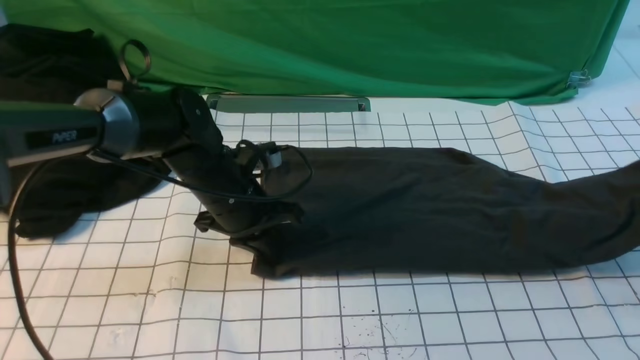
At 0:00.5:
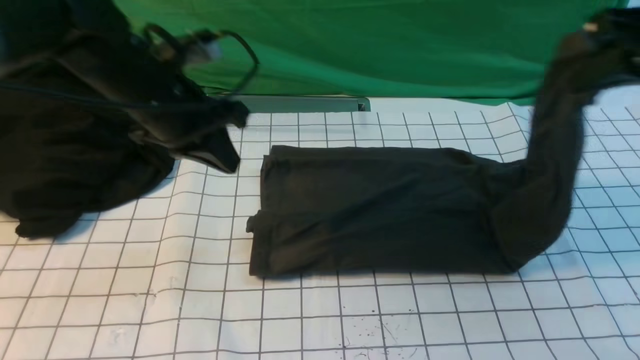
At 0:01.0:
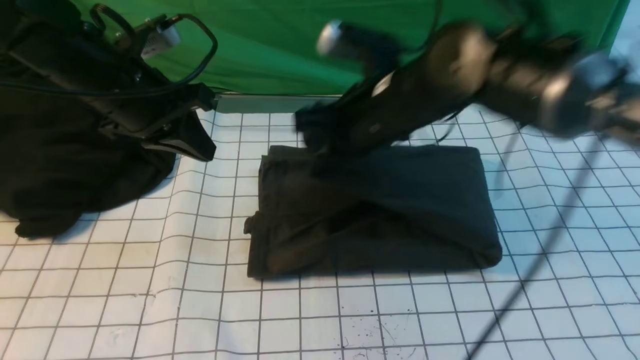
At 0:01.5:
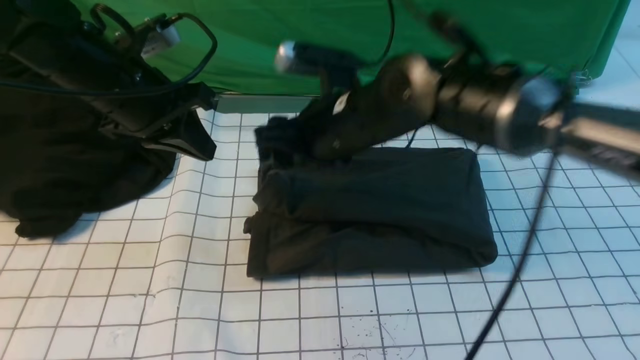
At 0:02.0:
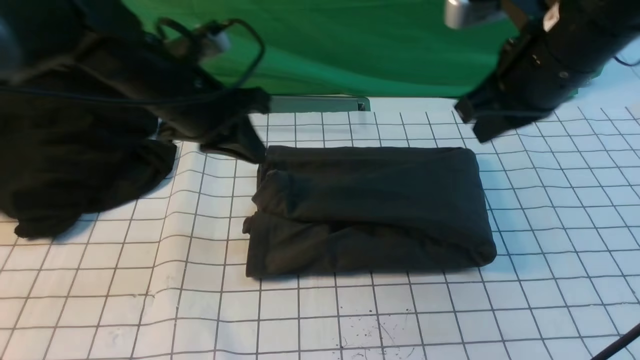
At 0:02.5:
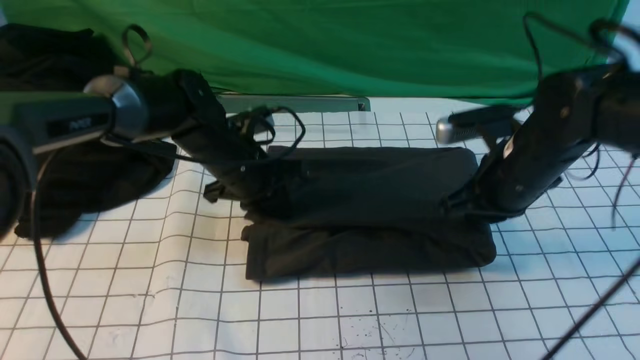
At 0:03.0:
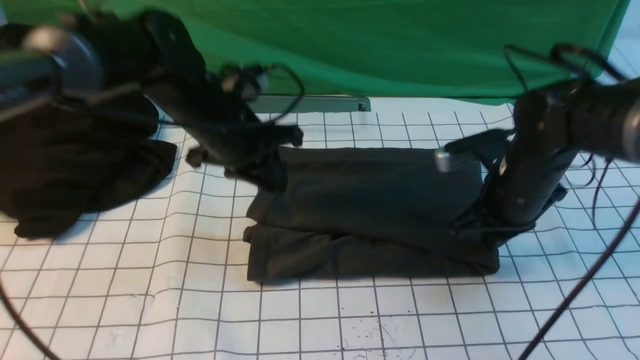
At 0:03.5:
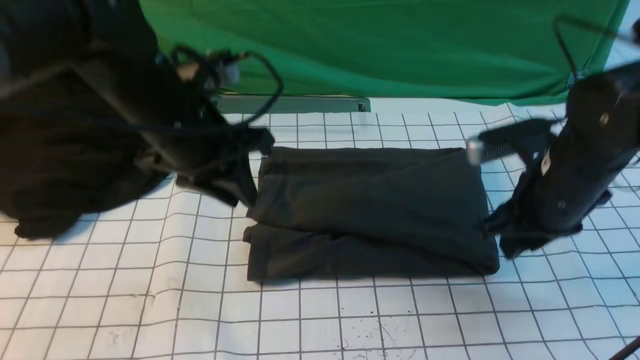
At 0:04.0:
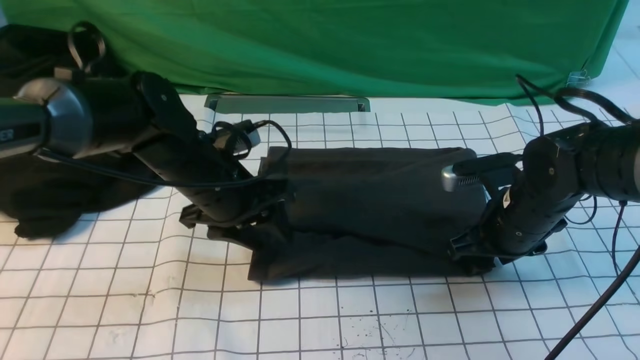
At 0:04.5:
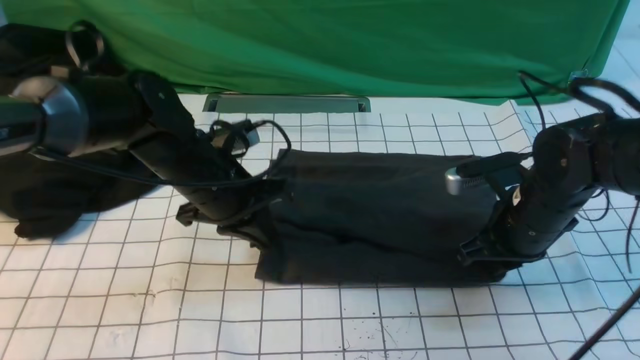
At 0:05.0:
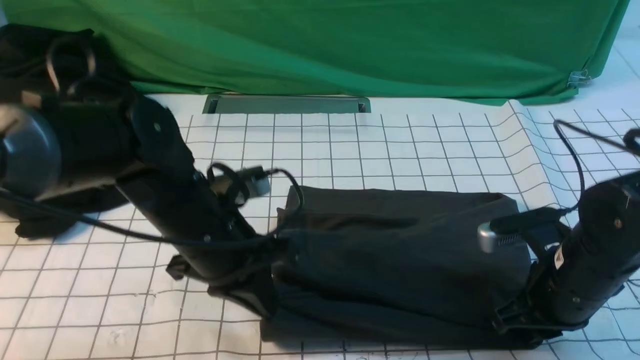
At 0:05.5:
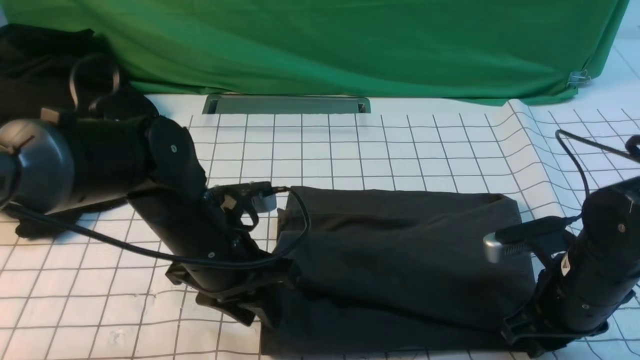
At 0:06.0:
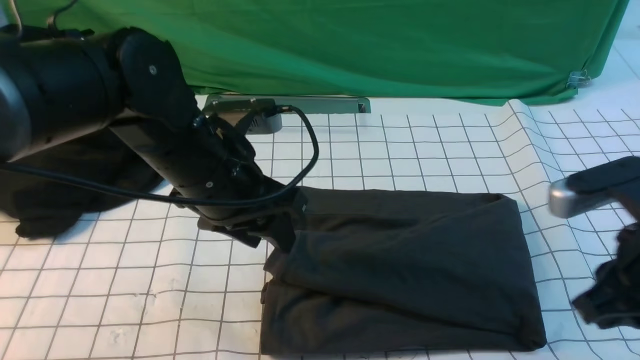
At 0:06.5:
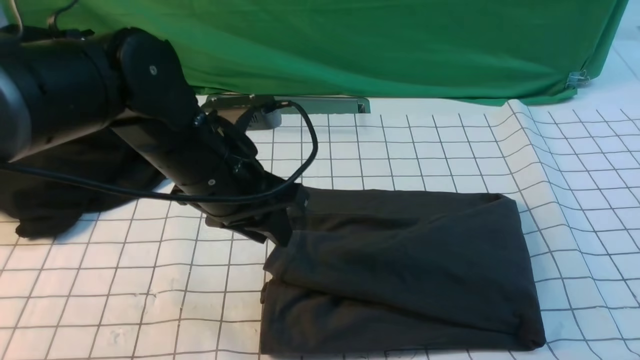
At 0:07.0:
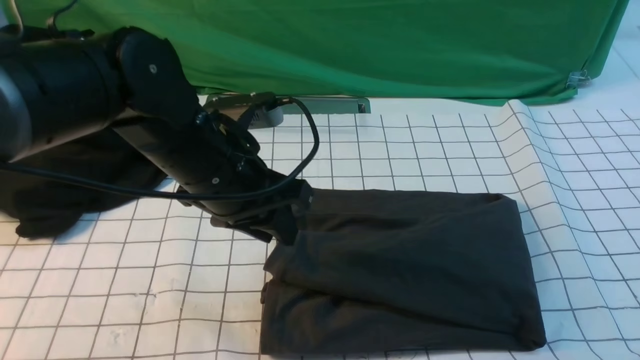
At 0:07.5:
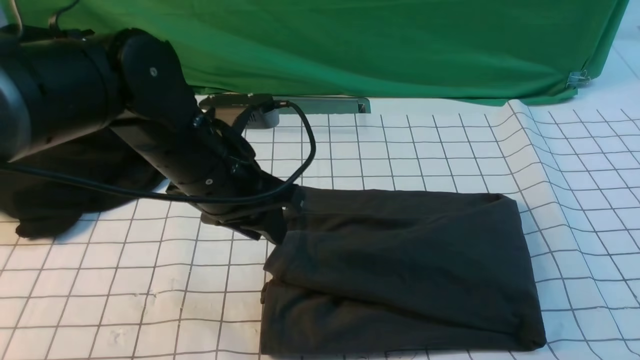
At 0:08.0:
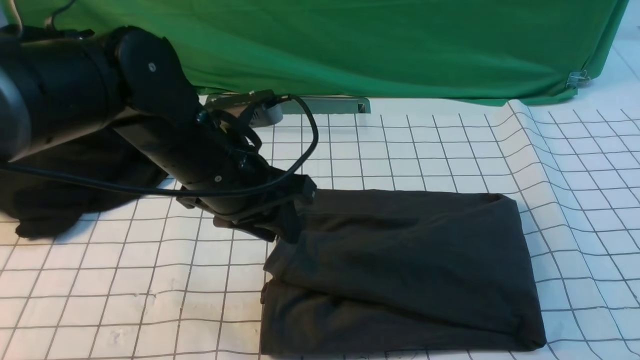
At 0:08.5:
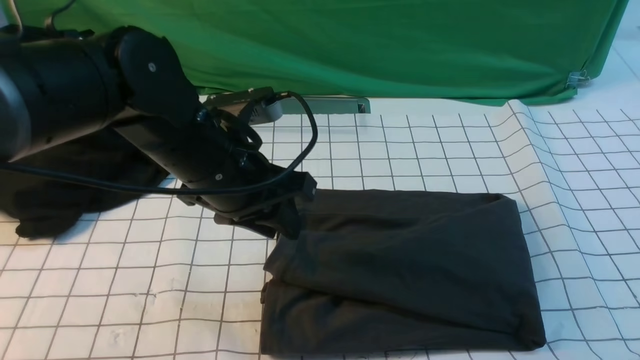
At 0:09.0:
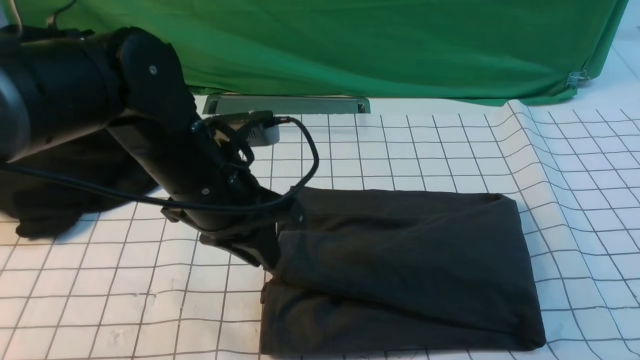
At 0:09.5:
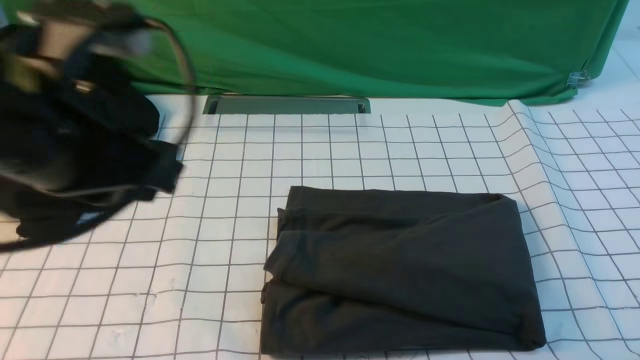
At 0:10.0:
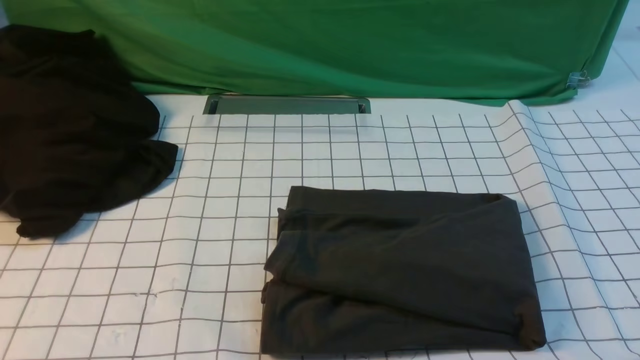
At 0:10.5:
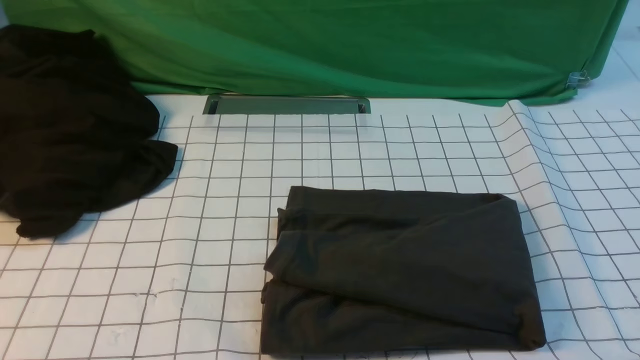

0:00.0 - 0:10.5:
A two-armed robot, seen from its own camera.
Step, 0:00.0 - 0:01.5: use the right arm to drag the right edge of the fabric to the left and folds it over the left edge.
0:00.0 - 0:02.0: The left gripper goes some 10 cm upward. Meanwhile the right gripper is displaced to the left by roughly 25 cm, and opens, then closes again.
0:02.0 - 0:04.0: The left gripper swings up and down, about 10 cm each way, with 2 reversals, and opens its fingers. Meanwhile the right gripper travels downward by approximately 15 cm, and opens.
0:04.0 - 0:06.5: The left gripper shifts approximately 10 cm upward and backward, and closes and opens again. Meanwhile the right gripper travels backward and upward by roughly 35 cm, and closes.
0:06.5 - 0:08.5: The right gripper moves downward, some 15 cm.
0:08.5 - 0:10.5: The left gripper travels backward and to the left by about 30 cm, and closes up.

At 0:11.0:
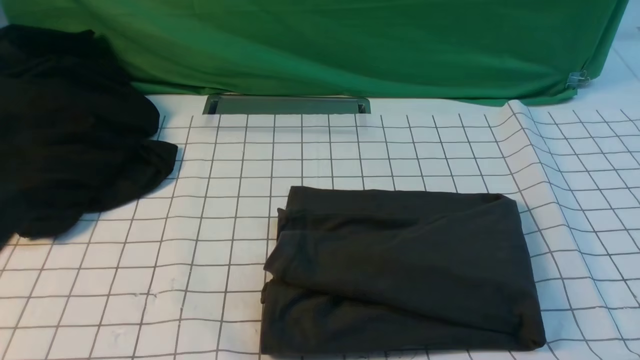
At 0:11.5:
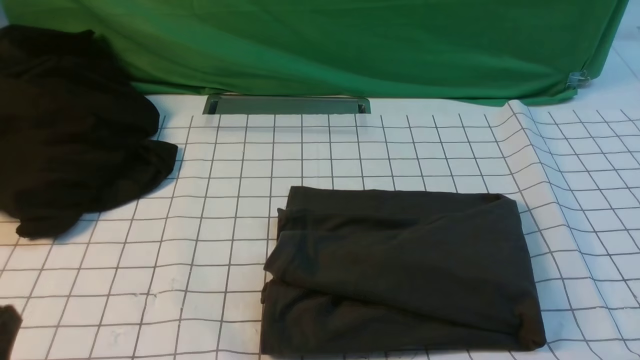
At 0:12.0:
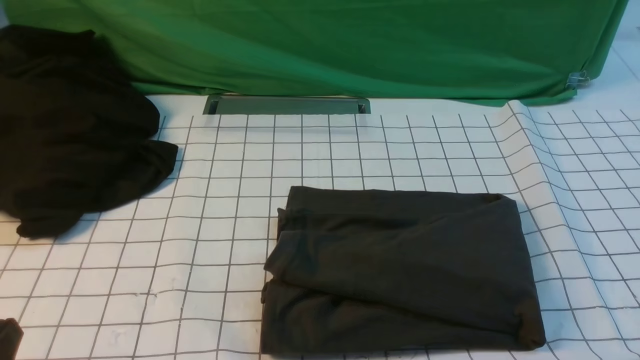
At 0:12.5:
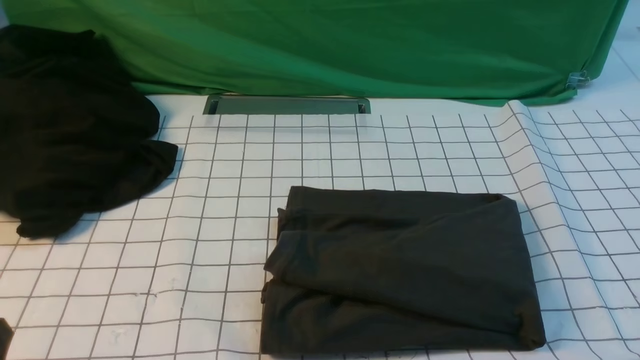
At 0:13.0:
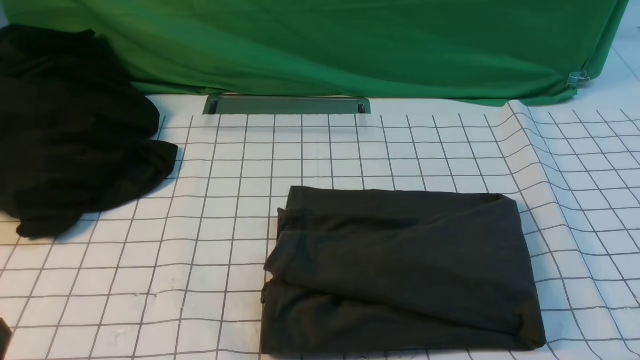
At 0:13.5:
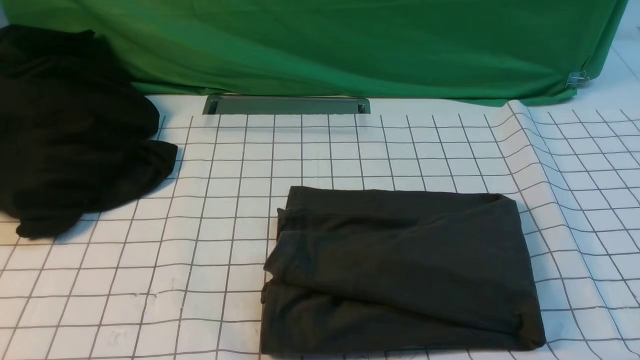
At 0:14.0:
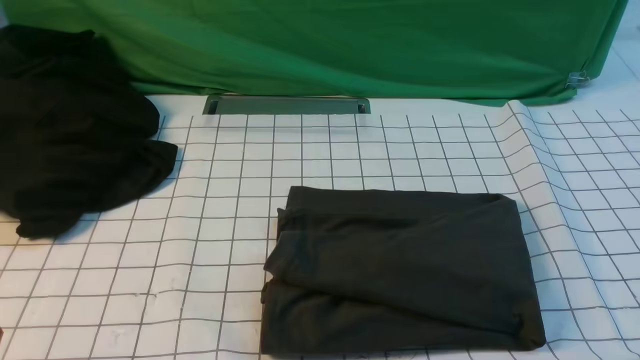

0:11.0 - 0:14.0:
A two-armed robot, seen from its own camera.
0:12.5 - 0:14.0: Both grippers stay about where they are.

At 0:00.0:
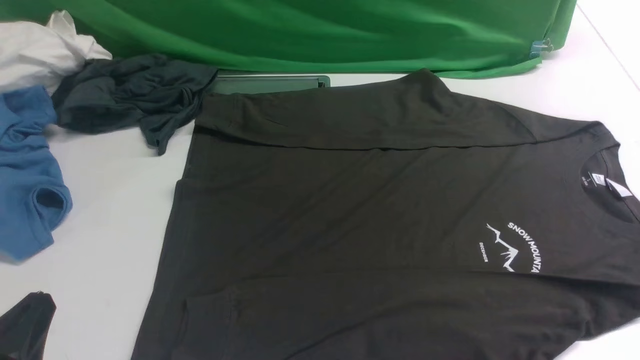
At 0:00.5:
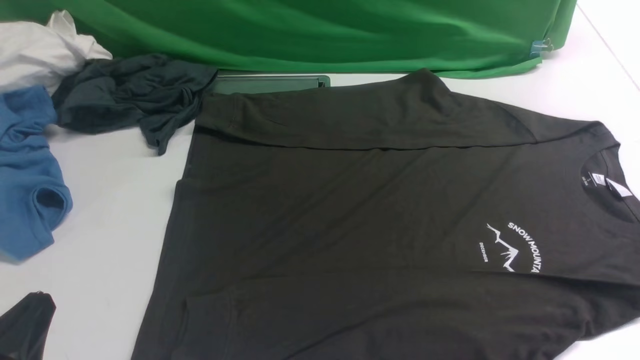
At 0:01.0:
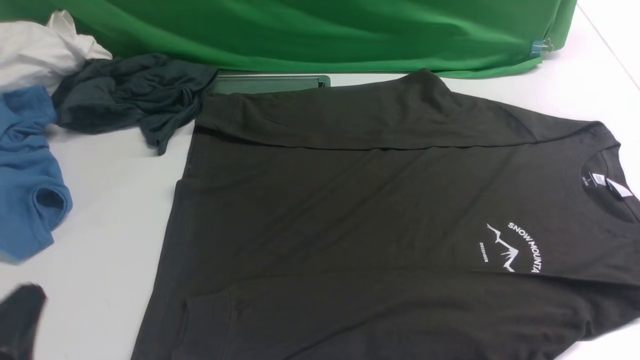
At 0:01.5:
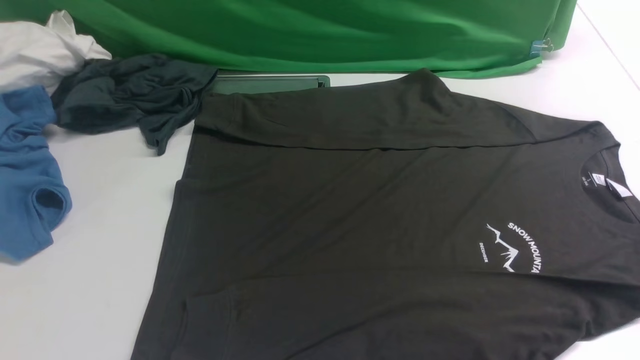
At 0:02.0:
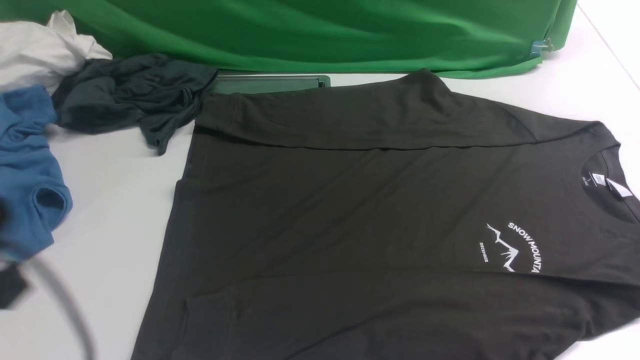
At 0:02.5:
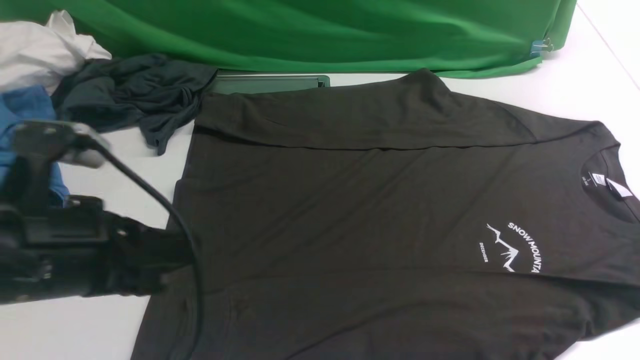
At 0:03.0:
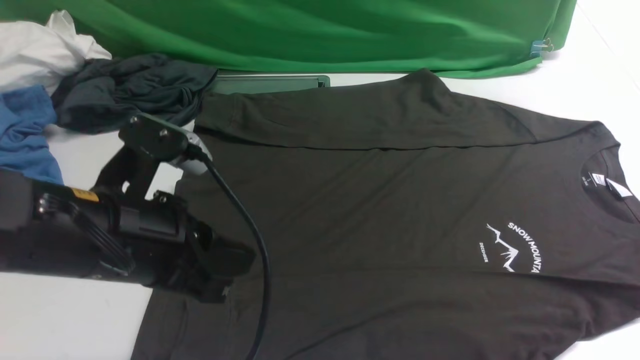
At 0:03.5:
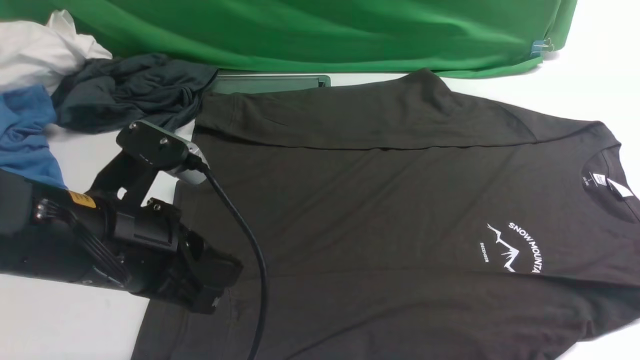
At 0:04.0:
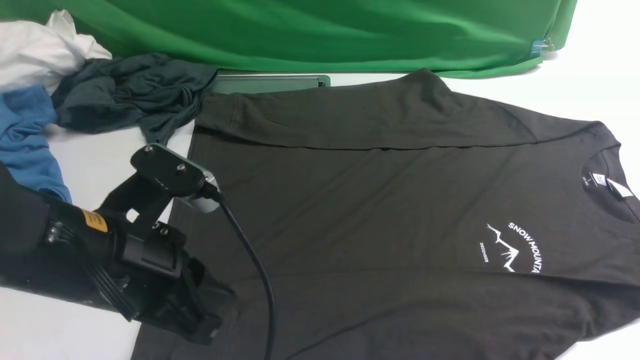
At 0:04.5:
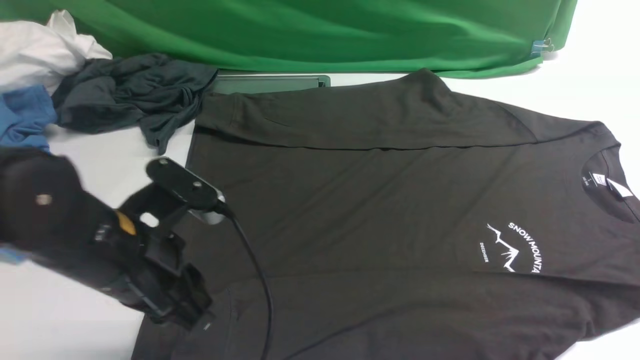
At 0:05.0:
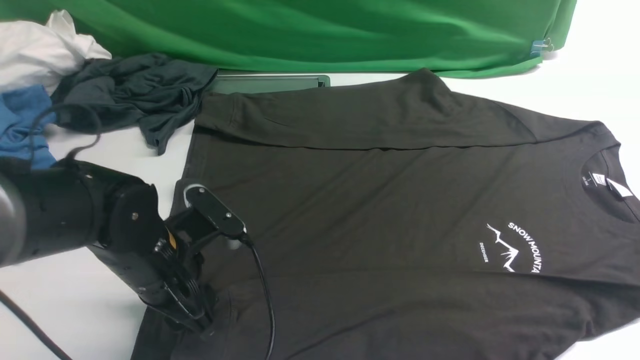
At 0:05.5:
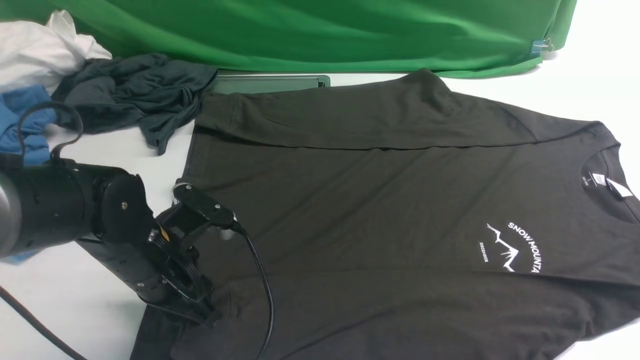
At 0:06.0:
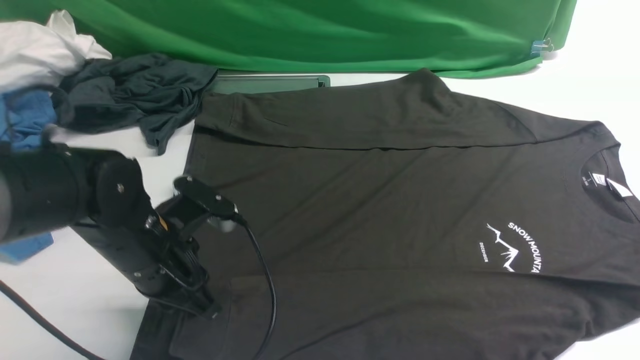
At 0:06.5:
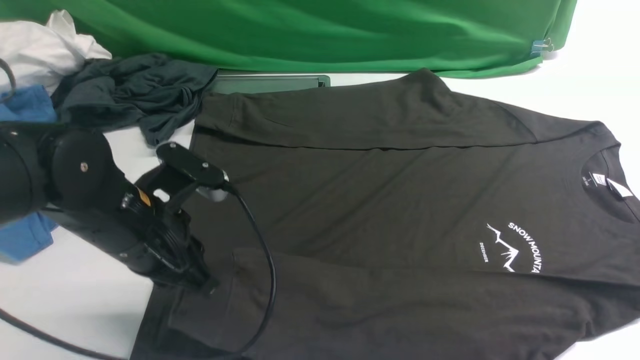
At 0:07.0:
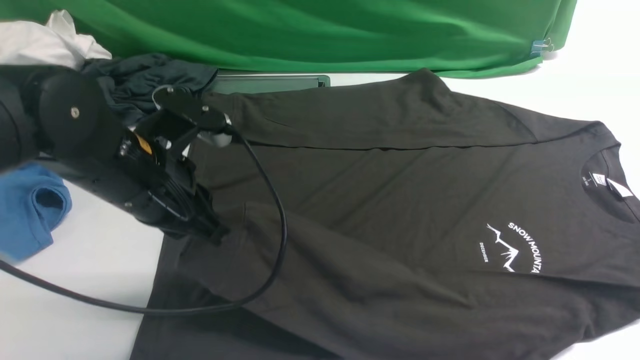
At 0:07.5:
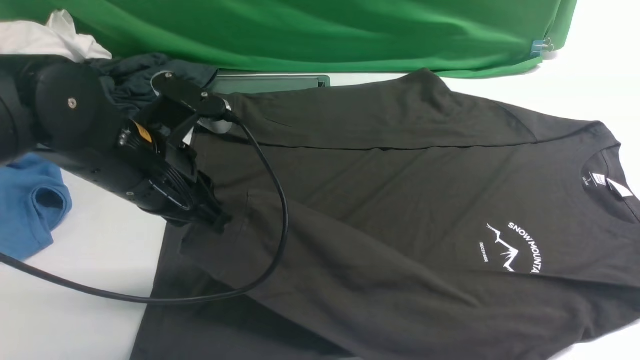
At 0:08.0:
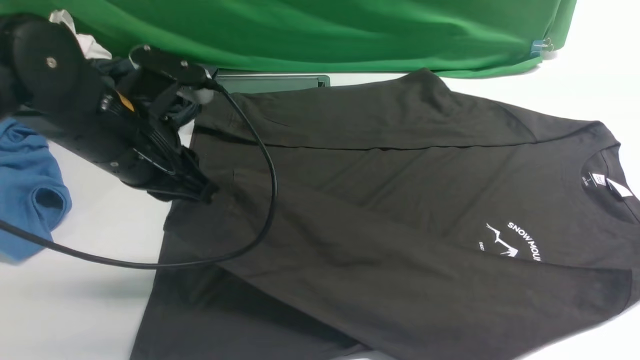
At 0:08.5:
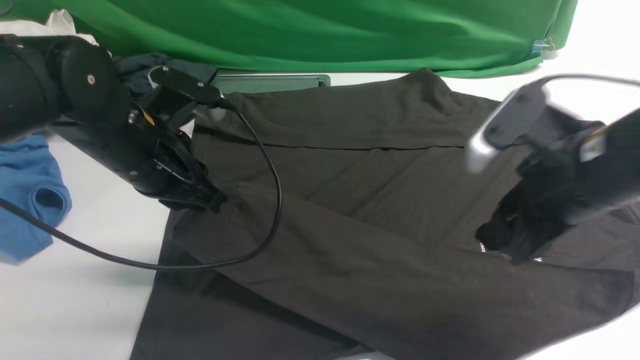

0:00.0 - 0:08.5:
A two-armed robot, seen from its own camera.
Step, 0:00.0 - 0:06.5: use the left arm to clamp the cuff closest to it.
0:00.0 - 0:02.0: The left gripper goes approximately 10 cm upward.
0:02.0 - 0:04.0: The left gripper shifts approximately 10 cm forward and to the right. Meanwhile the right gripper heads upward, covering approximately 15 cm.
0:04.0 - 0:06.5: The left gripper goes some 5 cm forward, and opens, then closes once more.
0:06.5 - 0:08.5: The left gripper goes some 5 cm forward. Meanwhile the right gripper travels forward and downward by some 25 cm, and opens its fingers.
